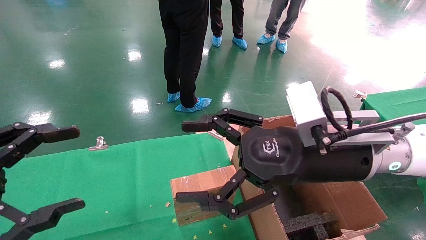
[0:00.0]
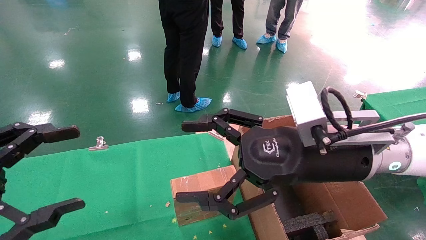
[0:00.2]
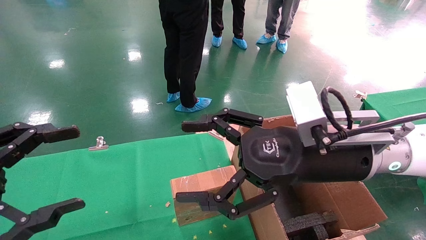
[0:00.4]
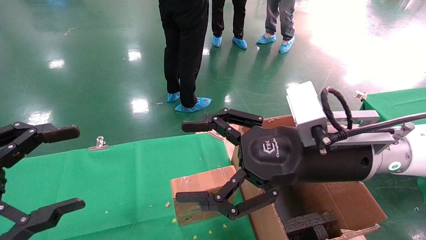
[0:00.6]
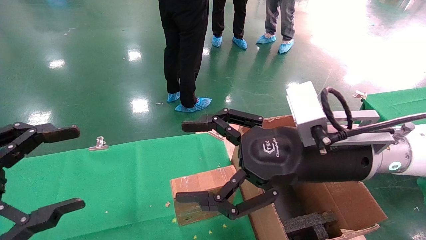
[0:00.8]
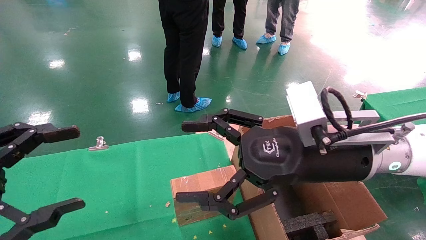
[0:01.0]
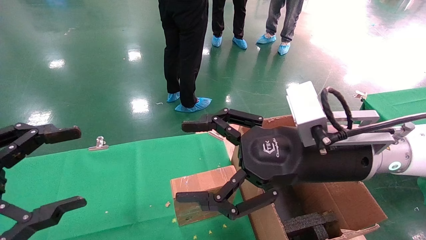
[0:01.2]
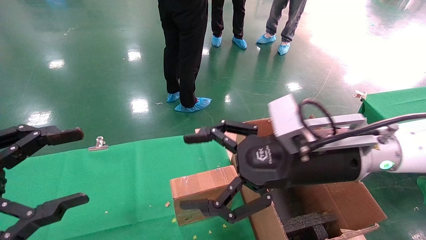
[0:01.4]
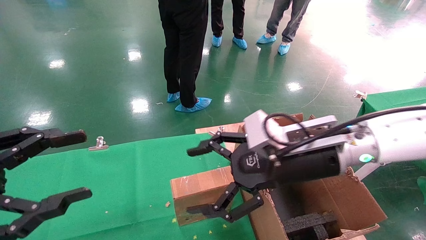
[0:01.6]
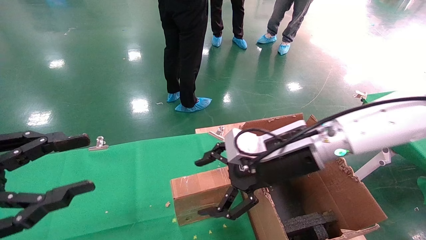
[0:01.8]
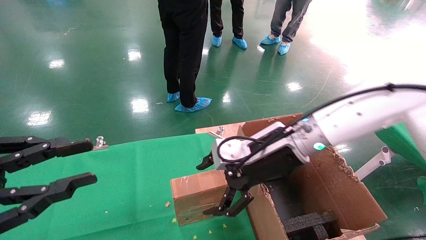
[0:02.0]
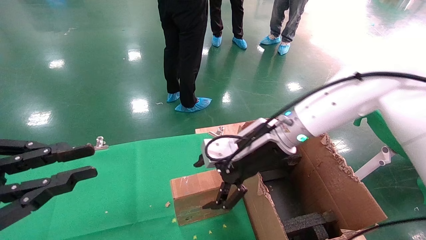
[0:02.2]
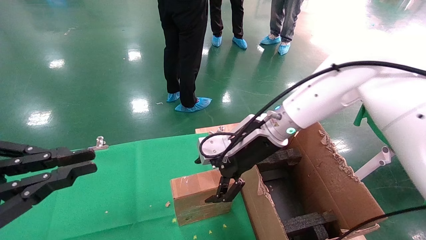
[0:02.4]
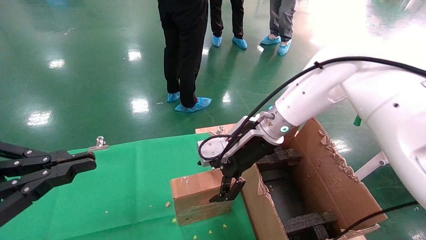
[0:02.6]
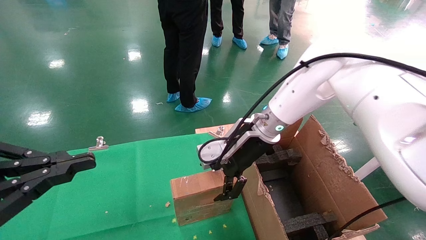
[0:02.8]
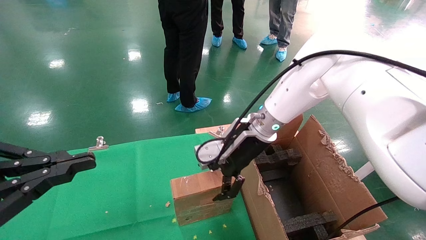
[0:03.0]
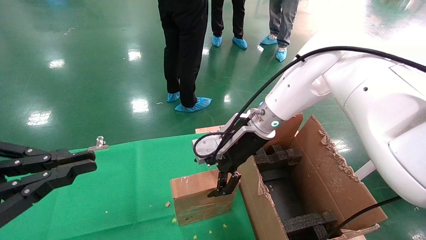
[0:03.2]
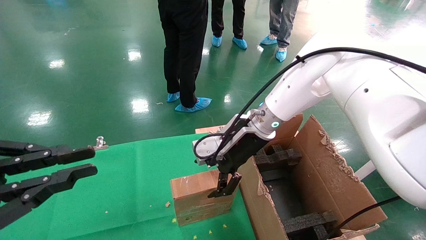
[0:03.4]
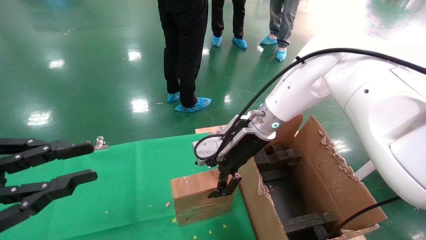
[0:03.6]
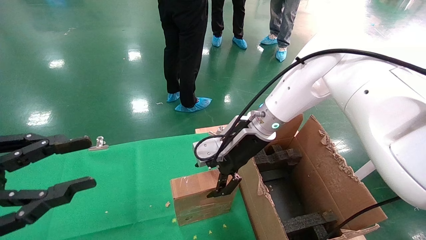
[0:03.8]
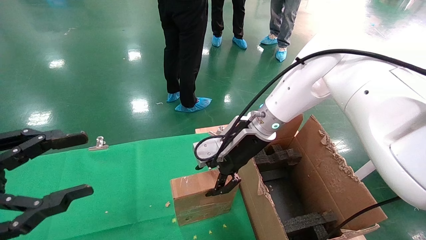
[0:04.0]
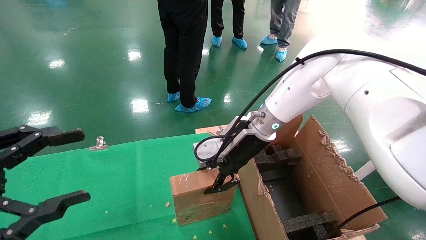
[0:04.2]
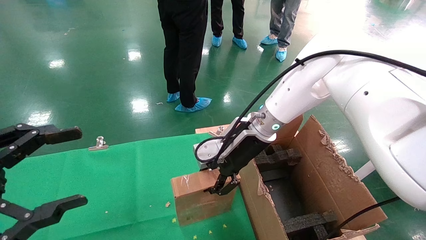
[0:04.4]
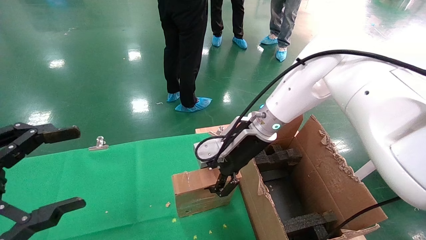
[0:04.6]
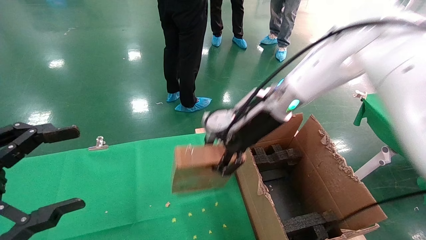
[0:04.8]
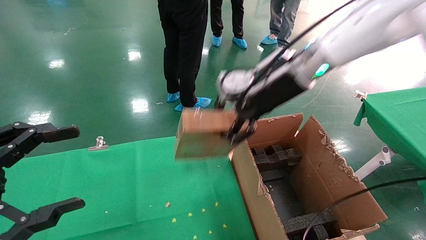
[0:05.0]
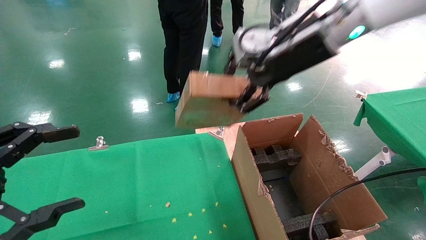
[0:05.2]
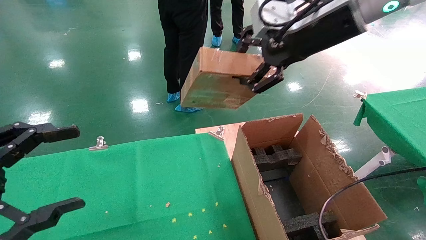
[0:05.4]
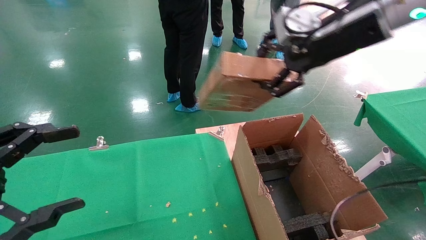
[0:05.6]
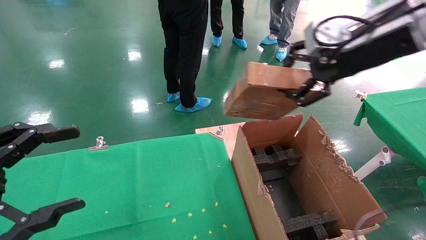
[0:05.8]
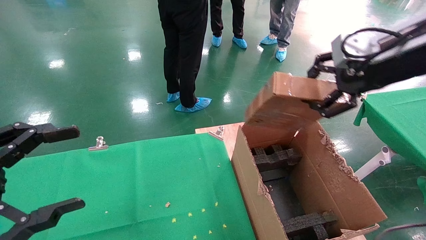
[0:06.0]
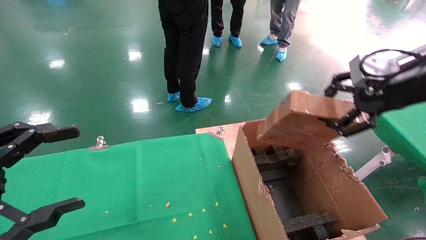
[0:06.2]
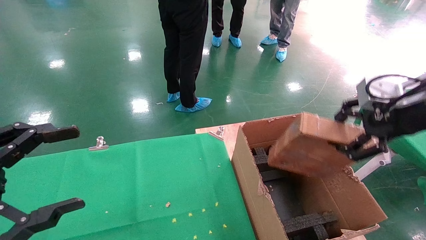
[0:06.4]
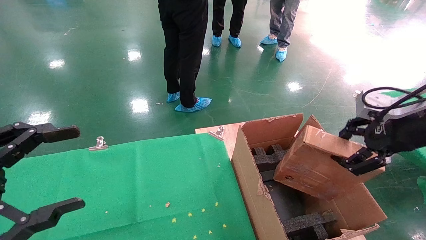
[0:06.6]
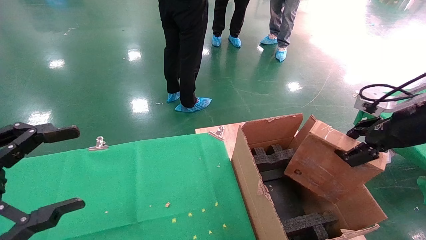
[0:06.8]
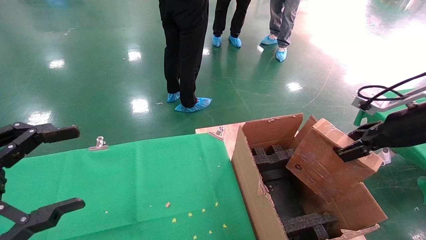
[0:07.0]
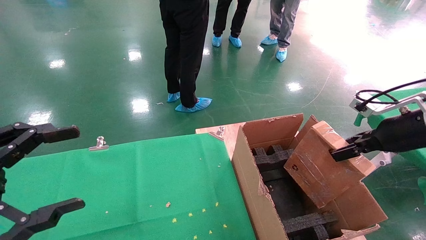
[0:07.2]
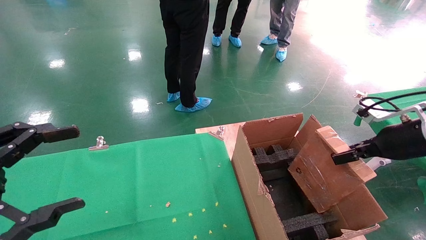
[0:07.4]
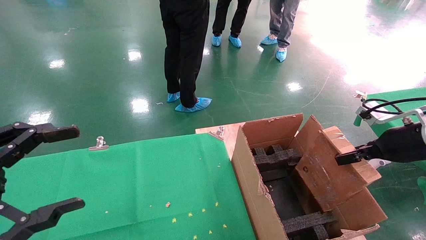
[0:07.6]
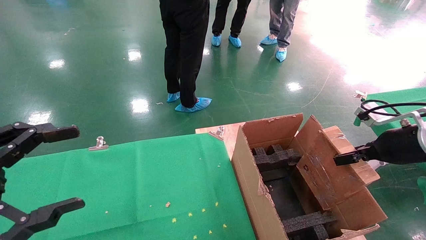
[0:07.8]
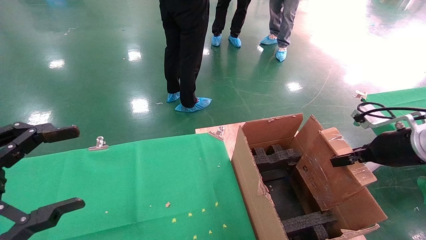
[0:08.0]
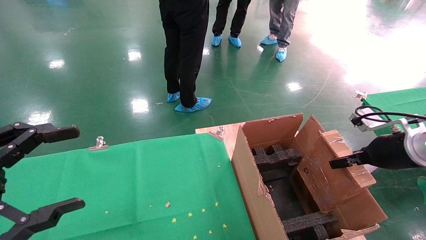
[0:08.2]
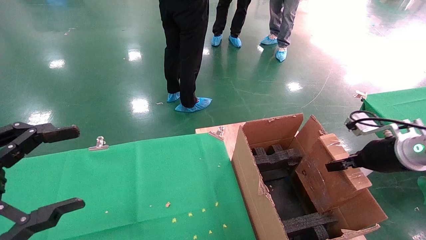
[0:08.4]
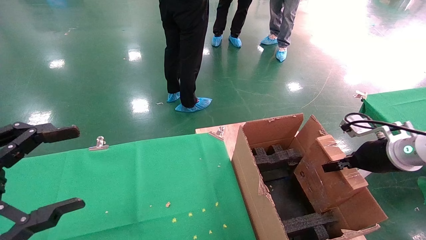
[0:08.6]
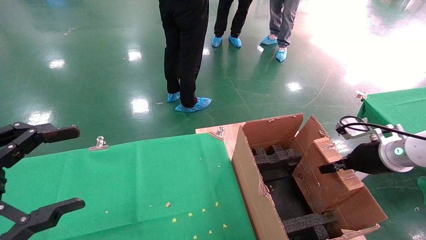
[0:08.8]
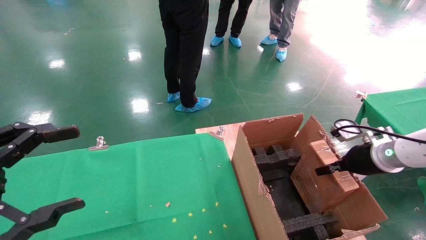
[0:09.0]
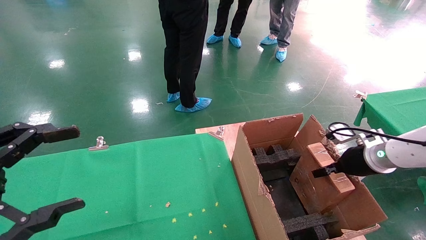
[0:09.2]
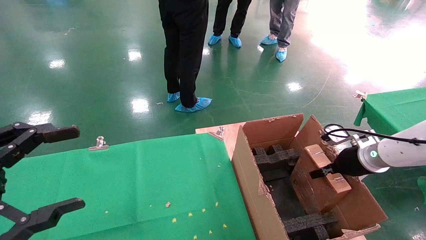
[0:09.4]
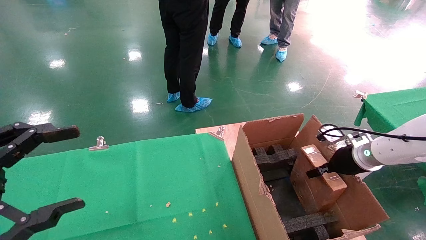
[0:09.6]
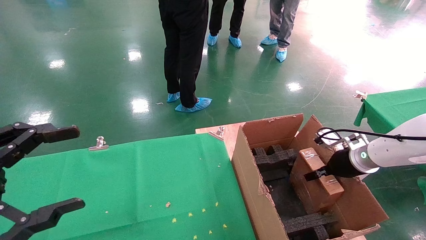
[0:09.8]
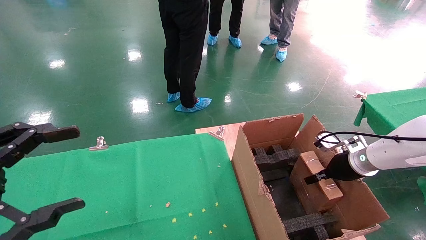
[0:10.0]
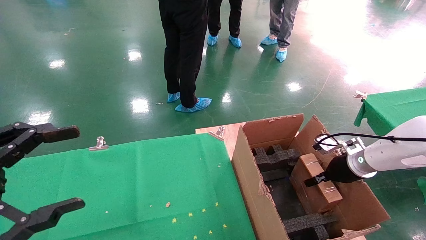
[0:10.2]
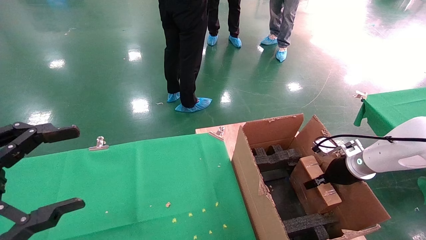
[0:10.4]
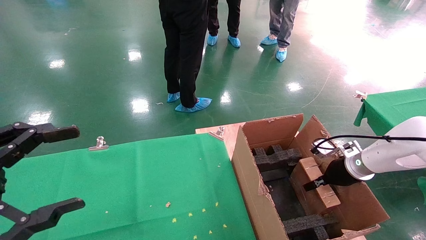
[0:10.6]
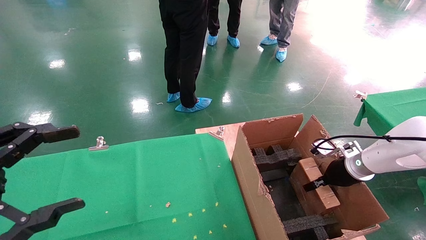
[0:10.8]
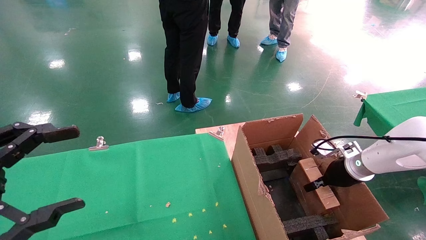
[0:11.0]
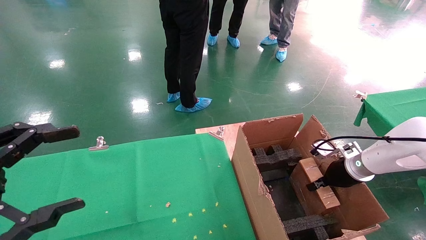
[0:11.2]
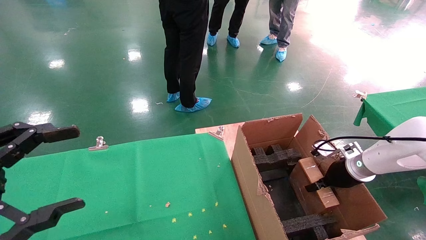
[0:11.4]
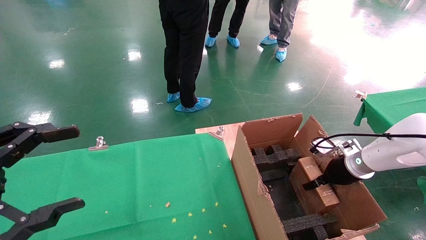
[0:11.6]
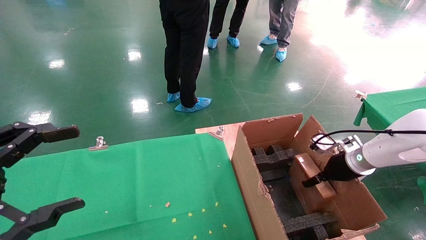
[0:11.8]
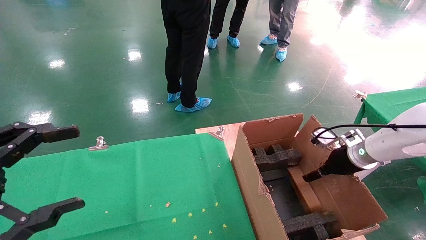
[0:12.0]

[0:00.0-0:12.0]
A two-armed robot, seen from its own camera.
Task of the whole recording: using a robotic arm to pick up a cardboard box and palace it the carton.
Step, 0:01.4 to 0:04.4: Pick up the mouse and the power cord paper box.
0:00.0 to 0:01.6: The right gripper moves roughly 5 cm.
0:01.6 to 0:03.0: The left gripper closes its fingers, while the right gripper travels forward by some 15 cm.
0:03.0 to 0:04.4: The right gripper closes. Meanwhile the left gripper opens up.
0:04.4 to 0:06.0: The right gripper is displaced to the right, upward and backward by some 30 cm.
0:06.0 to 0:07.6: The right gripper goes some 20 cm downward and to the right.
0:07.6 to 0:09.0: The right gripper shifts approximately 10 cm downward and forward.
0:09.0 to 0:10.4: The right gripper heads downward, covering approximately 5 cm.
0:10.4 to 0:12.0: The right gripper opens.

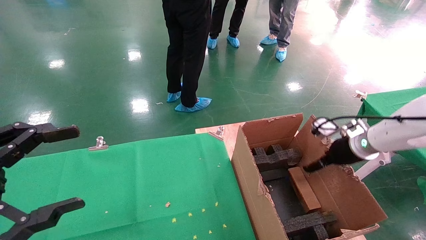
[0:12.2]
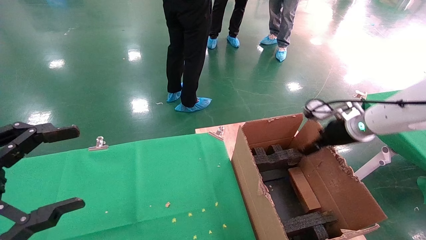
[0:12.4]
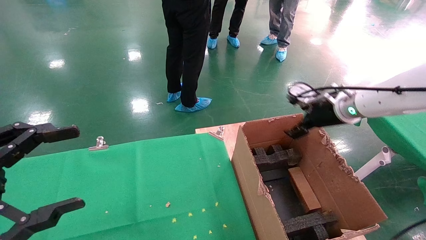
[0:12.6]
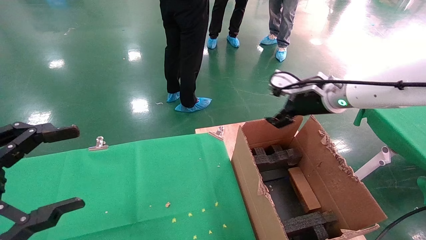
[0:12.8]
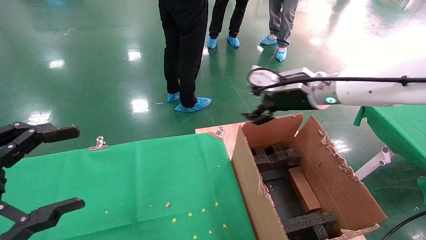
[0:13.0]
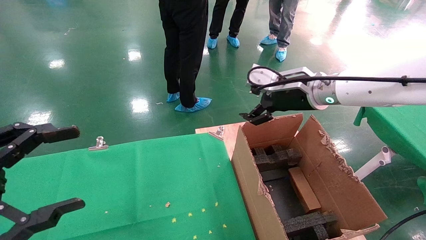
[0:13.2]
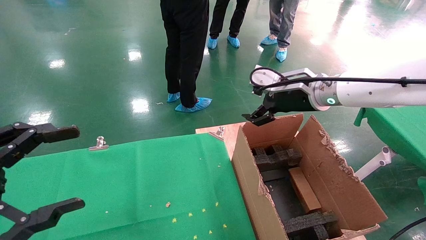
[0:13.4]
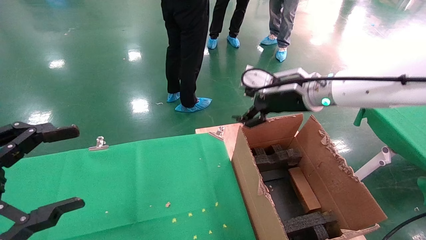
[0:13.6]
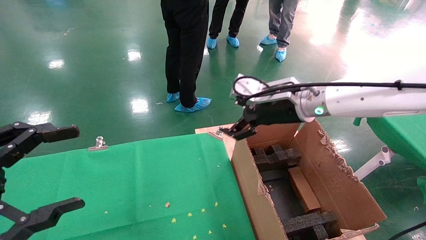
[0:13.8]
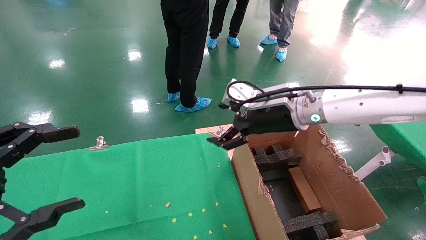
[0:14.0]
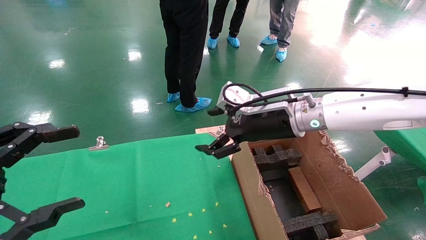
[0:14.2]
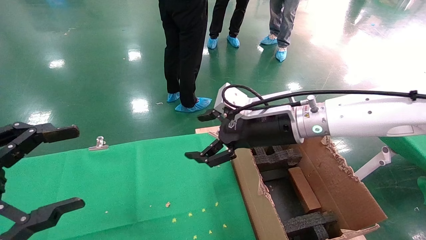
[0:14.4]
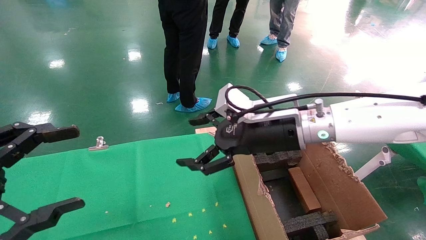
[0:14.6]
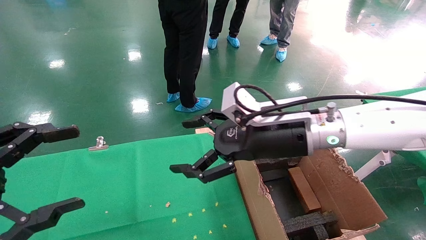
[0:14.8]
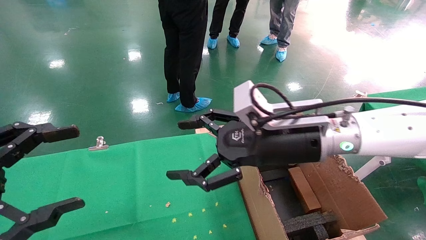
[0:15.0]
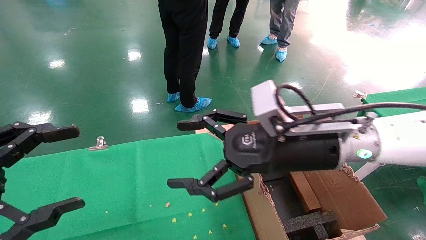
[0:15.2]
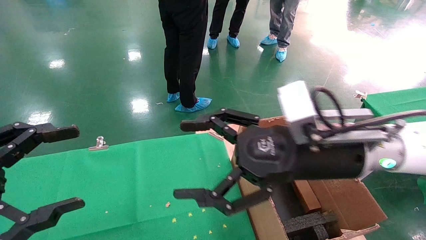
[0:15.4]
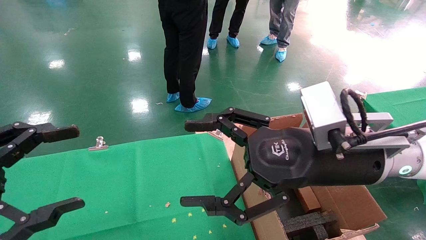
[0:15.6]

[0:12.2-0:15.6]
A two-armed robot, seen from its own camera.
Task of the whole recording: using a robotic arm to pick up a cardboard box and palace it the carton.
0:12.2 to 0:13.8: The right gripper heads to the left and upward, covering some 25 cm.
0:13.8 to 0:15.6: The right gripper is displaced backward by roughly 15 cm.

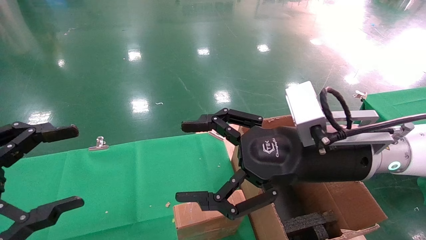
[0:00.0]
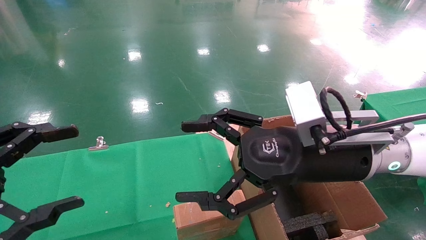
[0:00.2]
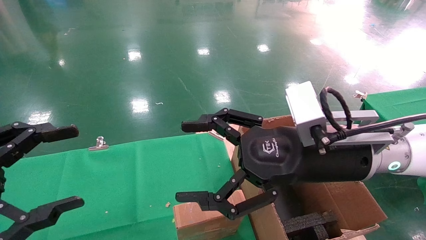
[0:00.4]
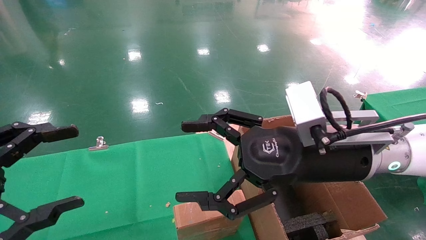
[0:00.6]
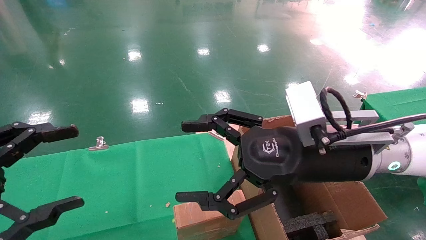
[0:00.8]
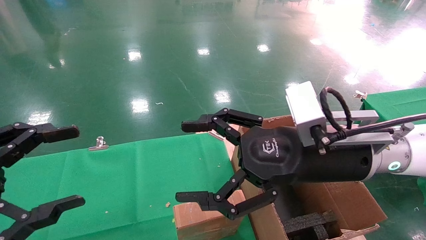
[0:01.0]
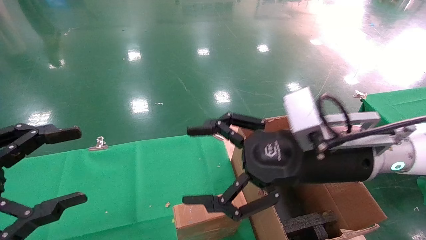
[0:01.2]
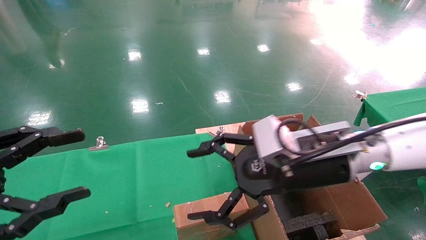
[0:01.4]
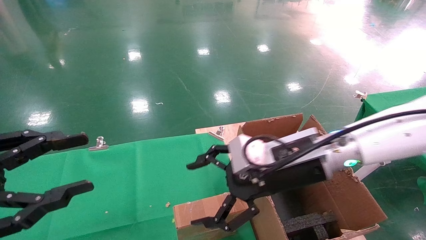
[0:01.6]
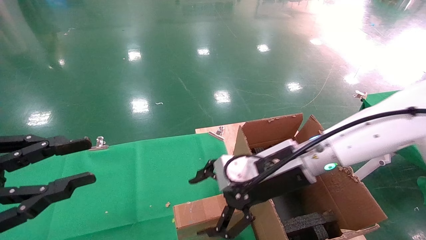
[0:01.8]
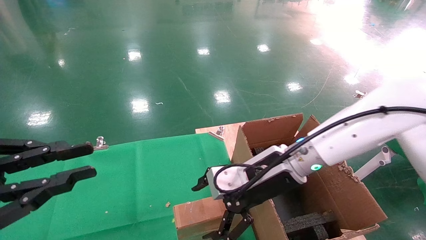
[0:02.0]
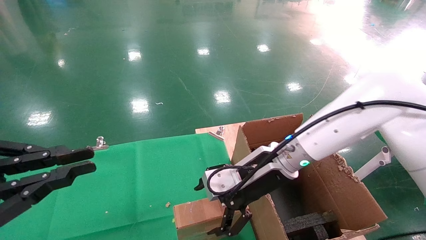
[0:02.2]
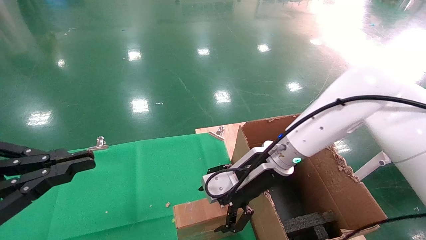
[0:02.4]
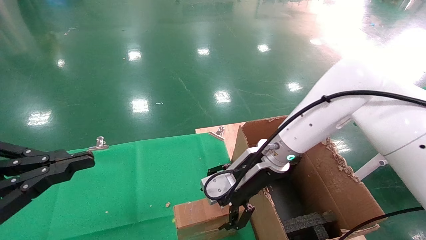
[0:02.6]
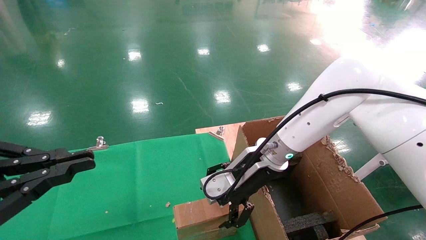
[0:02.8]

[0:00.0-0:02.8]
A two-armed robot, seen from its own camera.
Task of the whole recording: using a robotic arm to pick up a cardboard box and palace it the carton.
0:00.0 to 0:01.4: There are only small adjustments of the grippers.
0:01.4 to 0:02.8: The left gripper closes its fingers; the right gripper goes approximately 10 cm forward.
